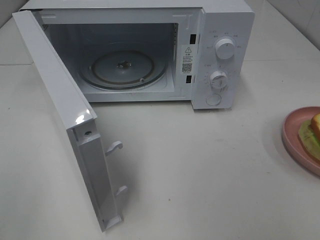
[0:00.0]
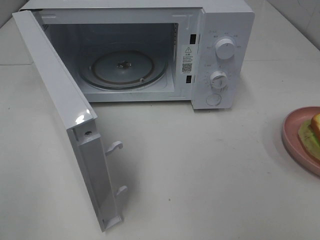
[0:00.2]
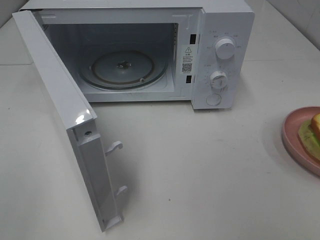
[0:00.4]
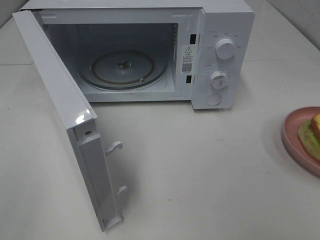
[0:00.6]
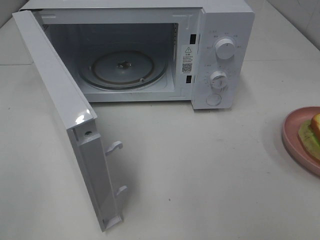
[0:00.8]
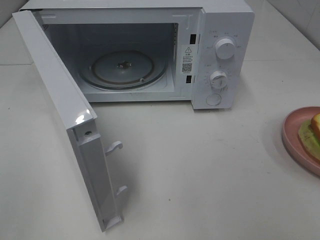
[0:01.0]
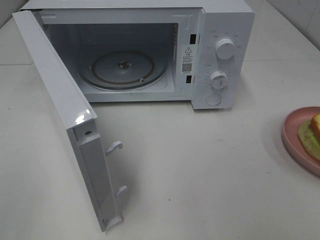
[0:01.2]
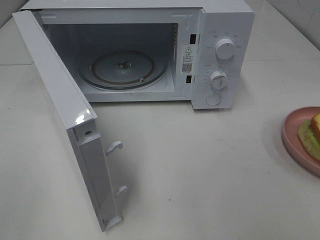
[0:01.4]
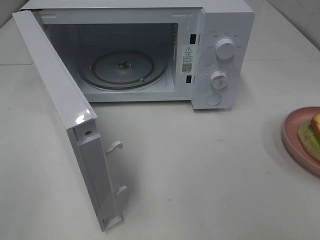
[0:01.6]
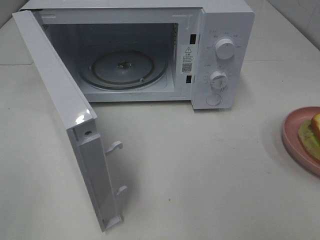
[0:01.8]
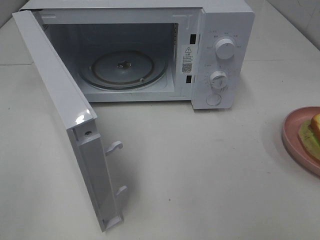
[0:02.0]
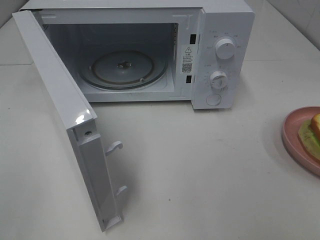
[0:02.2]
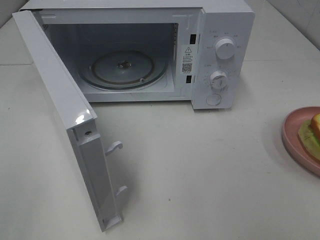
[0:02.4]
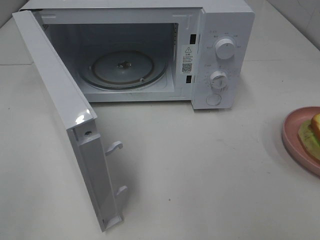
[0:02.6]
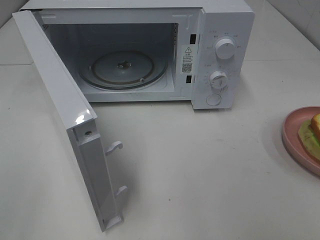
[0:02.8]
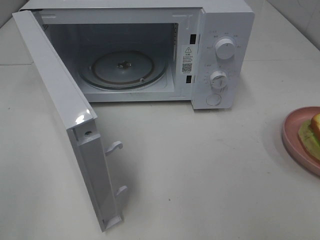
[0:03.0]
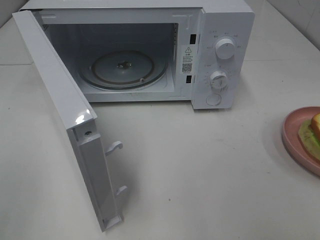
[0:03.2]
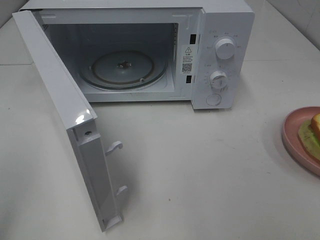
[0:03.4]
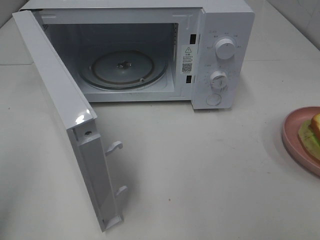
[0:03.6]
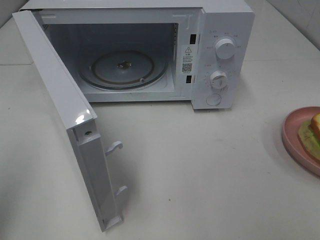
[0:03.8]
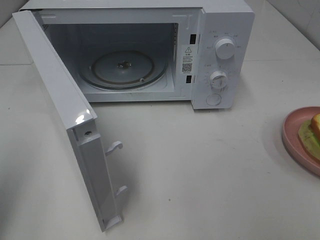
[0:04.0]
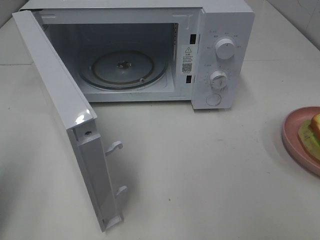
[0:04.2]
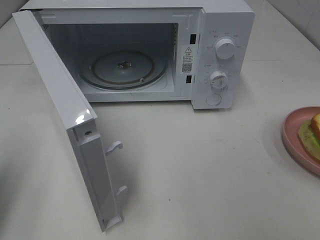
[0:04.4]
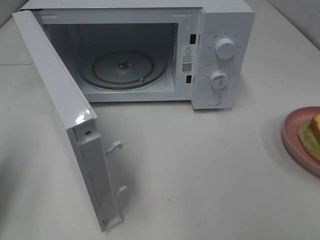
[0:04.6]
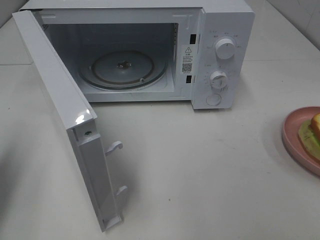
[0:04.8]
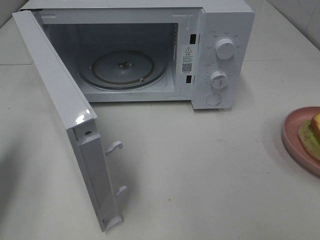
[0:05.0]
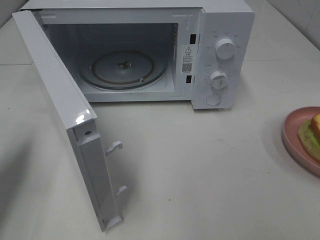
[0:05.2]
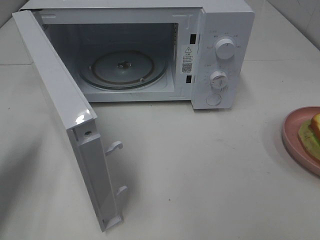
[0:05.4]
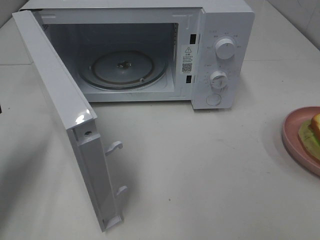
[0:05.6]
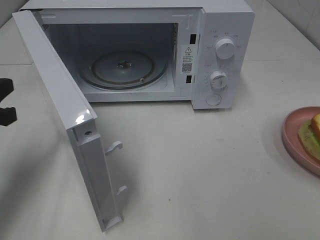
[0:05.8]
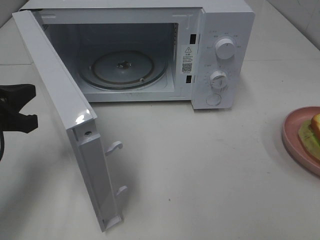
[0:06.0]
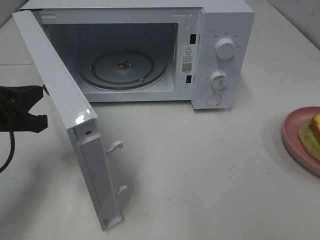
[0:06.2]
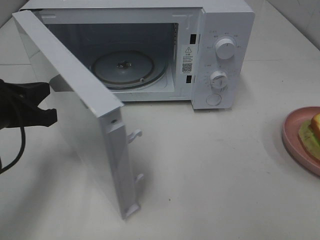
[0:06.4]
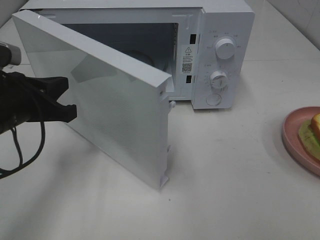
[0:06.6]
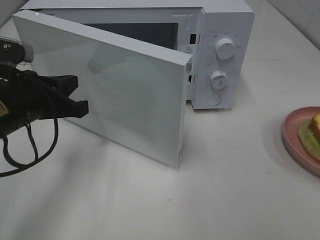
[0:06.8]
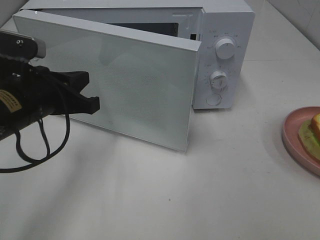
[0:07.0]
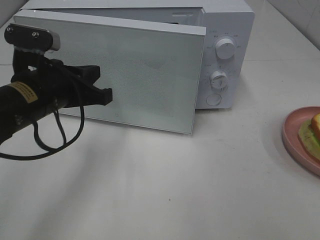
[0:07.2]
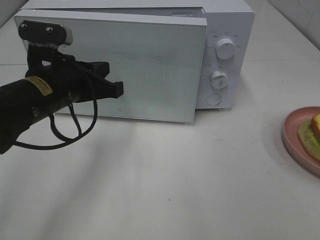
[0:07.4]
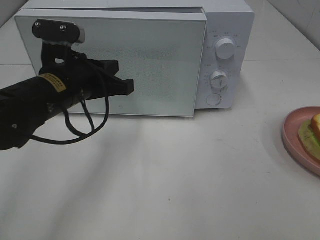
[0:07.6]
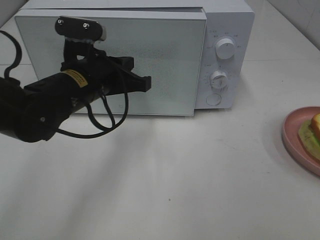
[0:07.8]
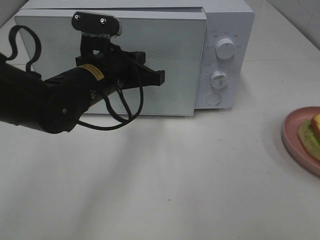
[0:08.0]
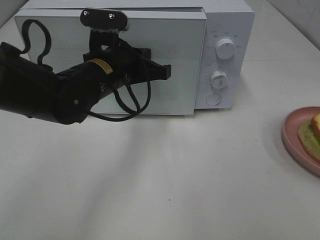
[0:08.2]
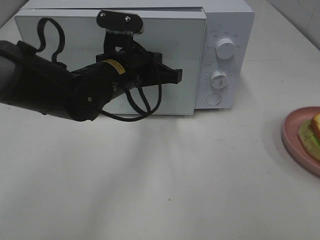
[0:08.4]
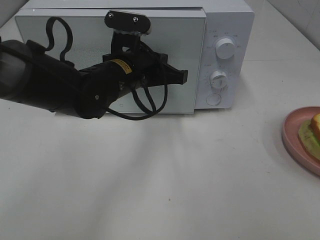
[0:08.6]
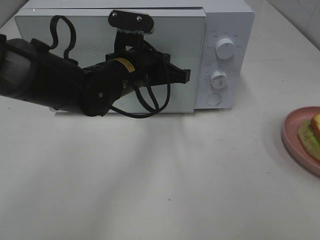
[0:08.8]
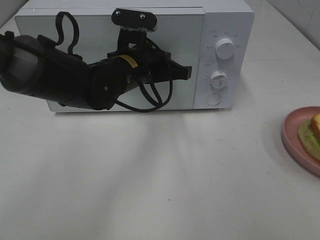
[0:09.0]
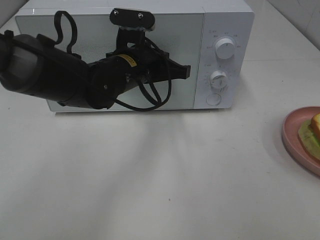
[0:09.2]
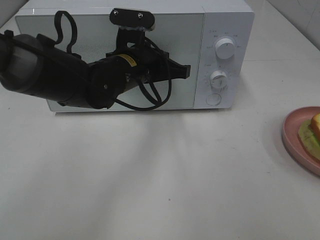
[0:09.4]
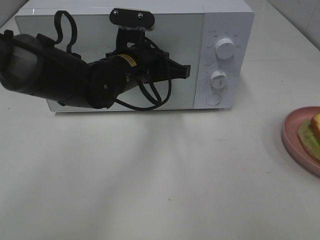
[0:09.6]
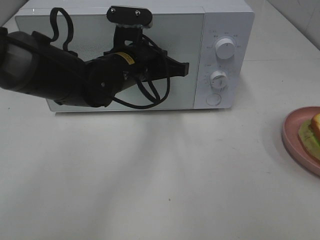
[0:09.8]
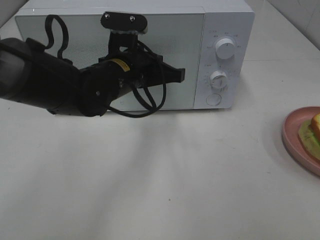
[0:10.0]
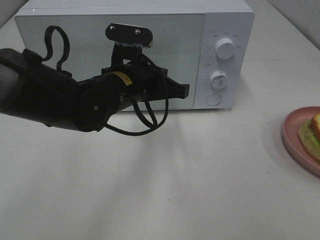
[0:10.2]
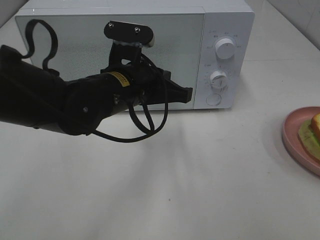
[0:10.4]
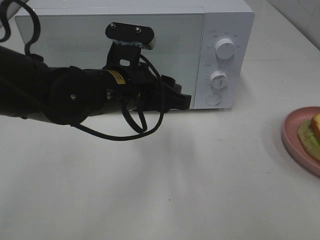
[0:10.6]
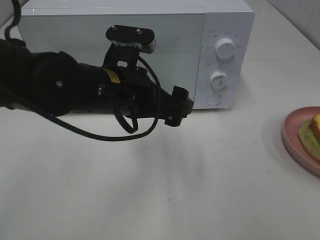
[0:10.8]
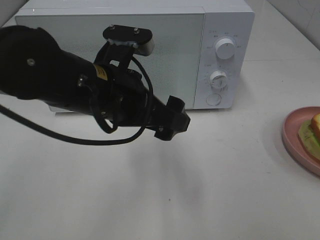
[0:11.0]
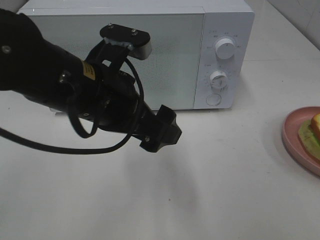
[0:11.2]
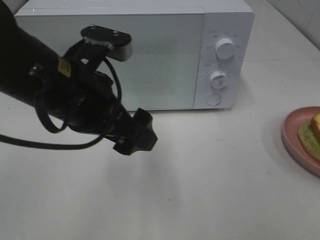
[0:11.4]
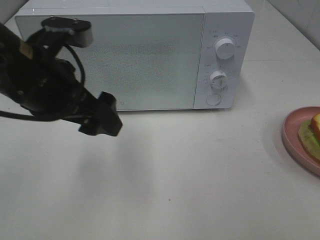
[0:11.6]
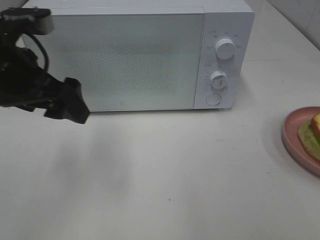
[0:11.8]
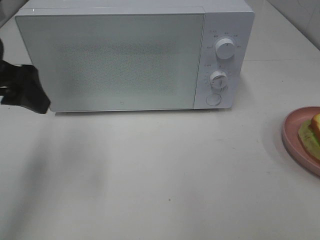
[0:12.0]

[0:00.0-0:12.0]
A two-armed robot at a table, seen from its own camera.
Task of the whole recording: Heat Sandwich.
Step, 0:00.0 to 0:10.6: Left hand: close the microwave door.
0:03.0 to 0:04.4: The left gripper moves forward and downward, approximately 15 cm, and closes its fingers.
0:04.4 to 0:06.0: The left gripper goes approximately 15 cm forward, downward and to the right.
0:06.0 to 0:07.6: The left gripper travels to the right and forward by some 15 cm.
0:07.6 to 0:09.0: The left gripper heads to the right and forward, covering about 10 cm.
0:09.0 to 0:10.4: The left gripper goes roughly 5 cm backward.
0:10.4 to 0:12.0: The left gripper travels to the left and upward by some 20 cm, and opens its fingers.

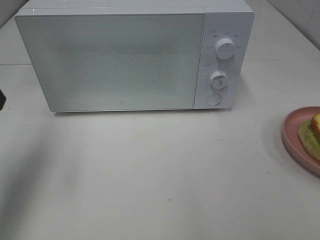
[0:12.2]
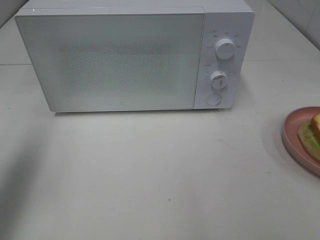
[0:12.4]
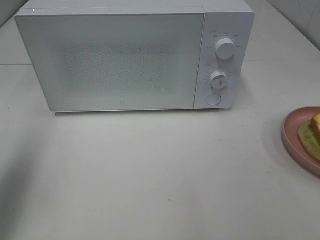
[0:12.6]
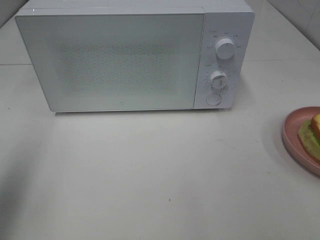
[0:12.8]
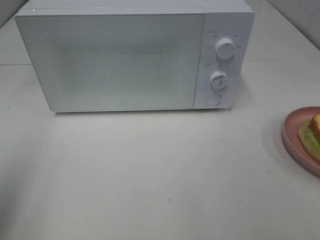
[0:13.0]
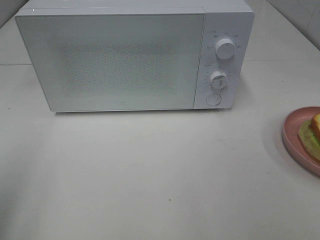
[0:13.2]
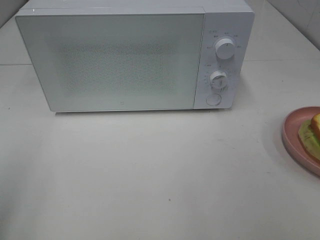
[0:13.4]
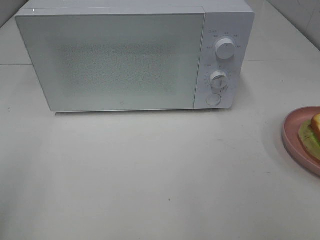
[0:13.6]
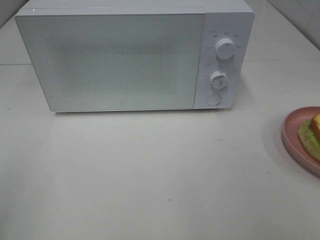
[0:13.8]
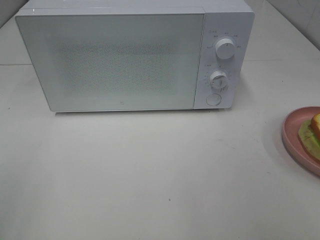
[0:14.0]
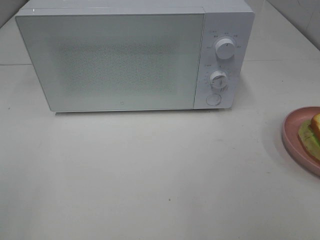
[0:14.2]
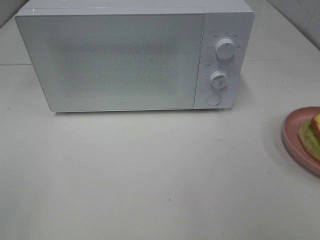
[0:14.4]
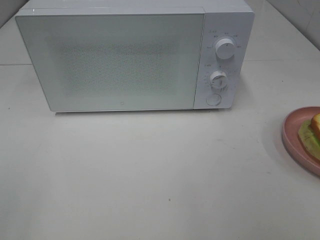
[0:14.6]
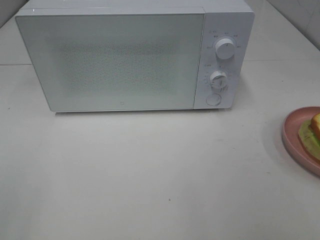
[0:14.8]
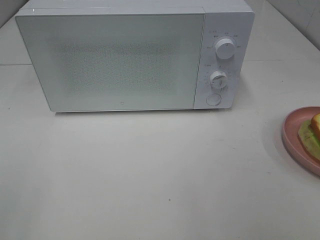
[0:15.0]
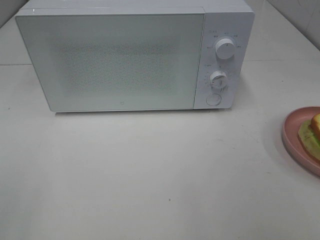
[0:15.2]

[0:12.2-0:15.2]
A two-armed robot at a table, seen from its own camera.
Task of the whole recording: Heat Sandwich.
0:12.2 to 0:13.8: The left gripper travels backward by approximately 20 cm.

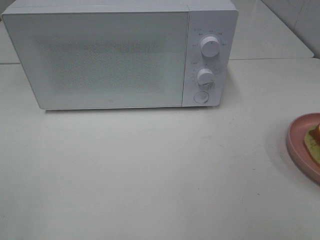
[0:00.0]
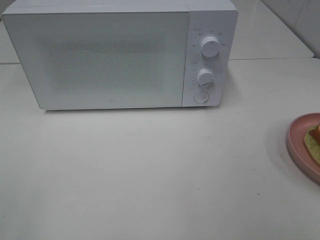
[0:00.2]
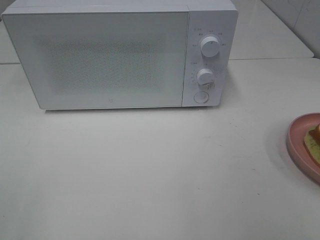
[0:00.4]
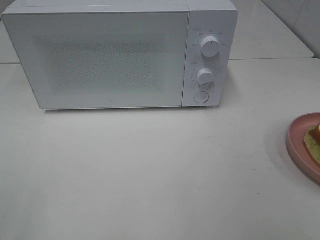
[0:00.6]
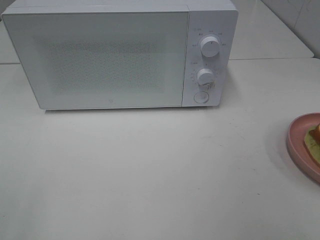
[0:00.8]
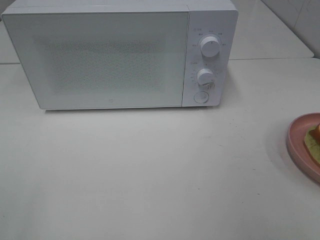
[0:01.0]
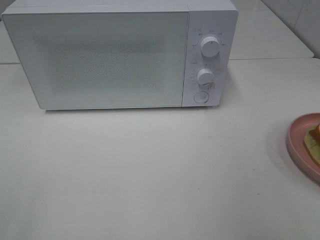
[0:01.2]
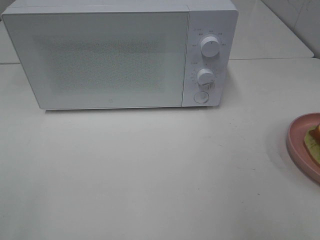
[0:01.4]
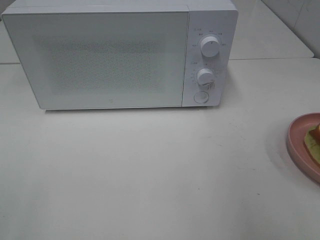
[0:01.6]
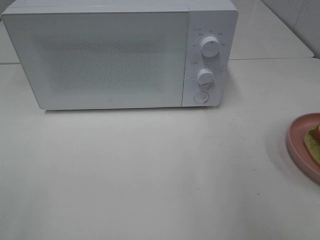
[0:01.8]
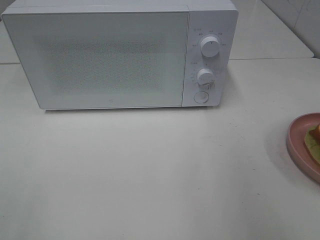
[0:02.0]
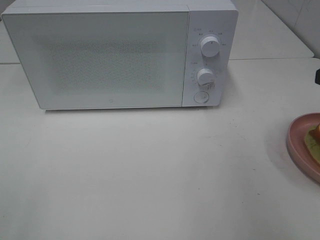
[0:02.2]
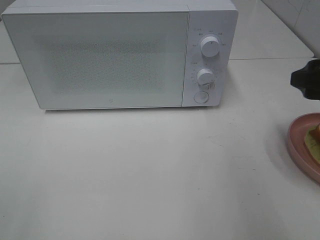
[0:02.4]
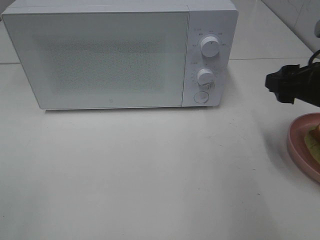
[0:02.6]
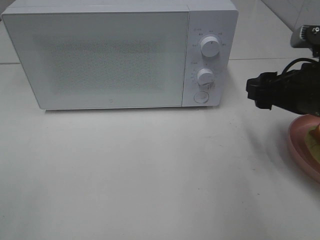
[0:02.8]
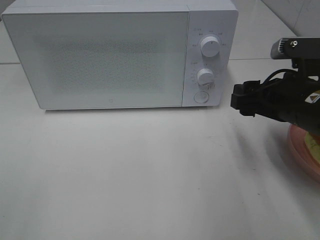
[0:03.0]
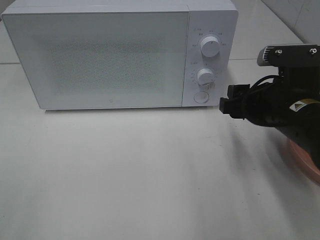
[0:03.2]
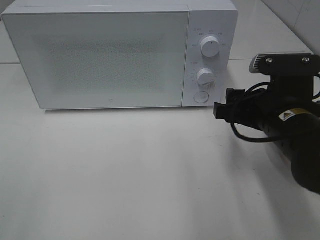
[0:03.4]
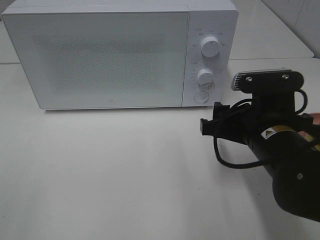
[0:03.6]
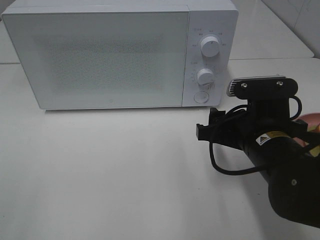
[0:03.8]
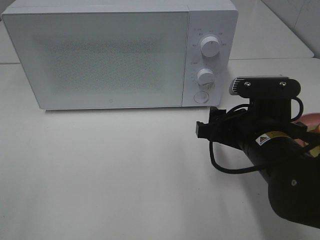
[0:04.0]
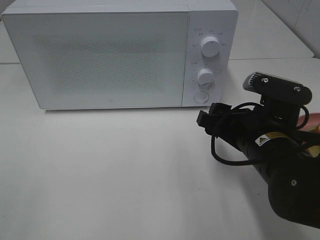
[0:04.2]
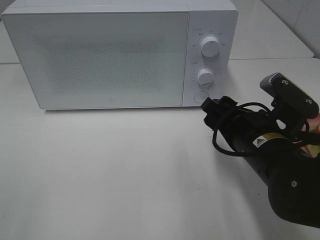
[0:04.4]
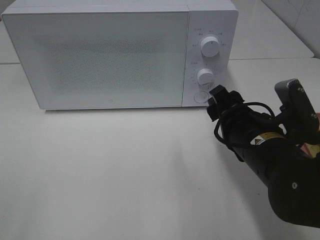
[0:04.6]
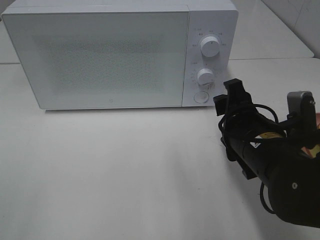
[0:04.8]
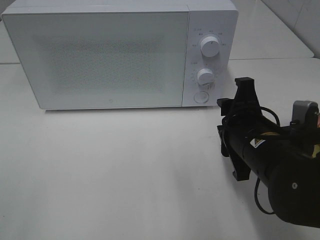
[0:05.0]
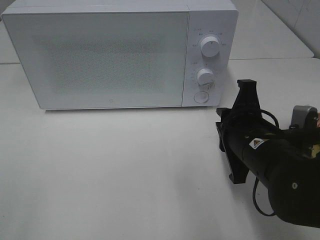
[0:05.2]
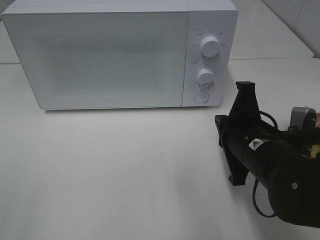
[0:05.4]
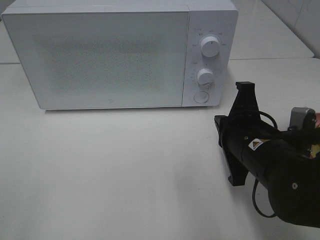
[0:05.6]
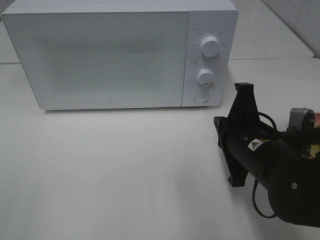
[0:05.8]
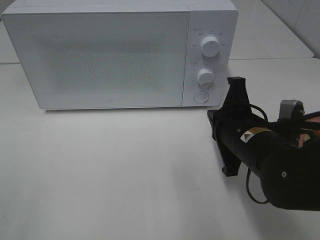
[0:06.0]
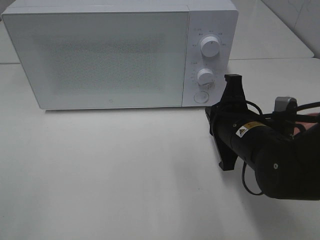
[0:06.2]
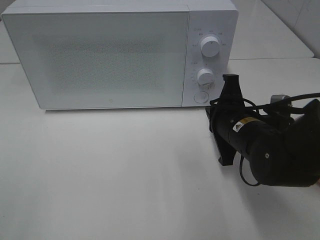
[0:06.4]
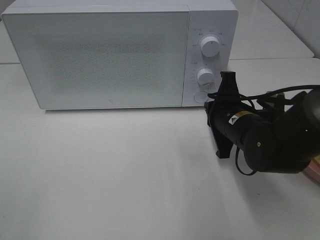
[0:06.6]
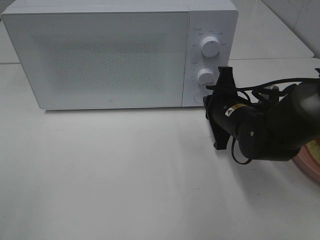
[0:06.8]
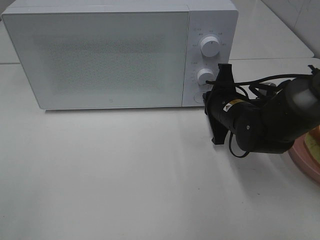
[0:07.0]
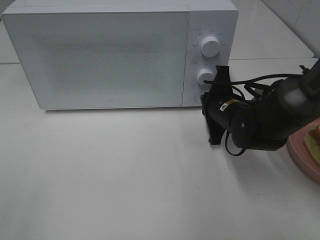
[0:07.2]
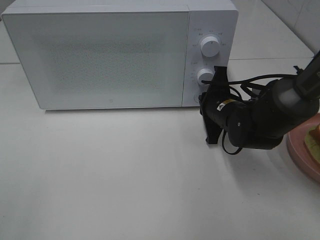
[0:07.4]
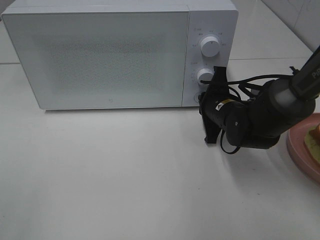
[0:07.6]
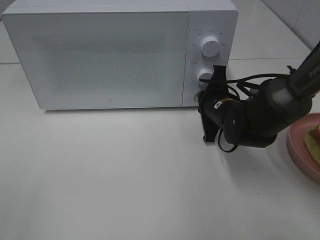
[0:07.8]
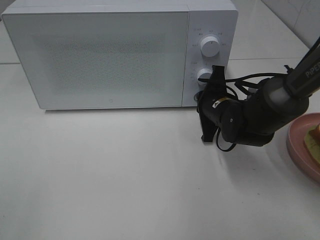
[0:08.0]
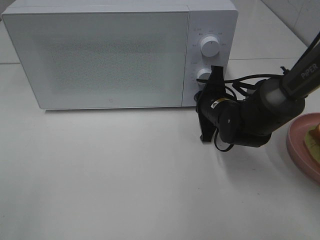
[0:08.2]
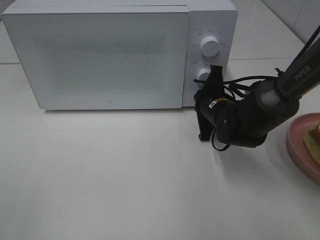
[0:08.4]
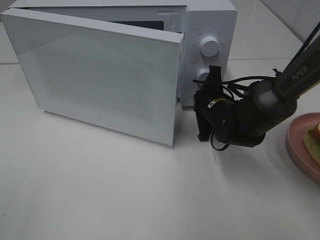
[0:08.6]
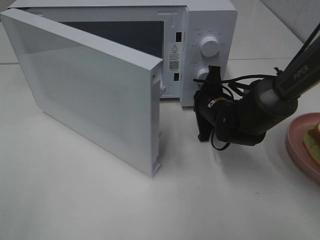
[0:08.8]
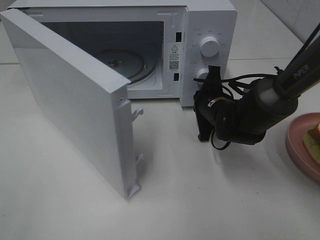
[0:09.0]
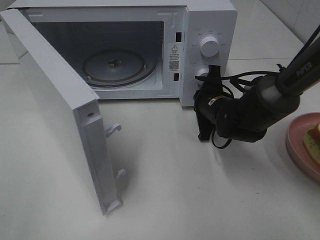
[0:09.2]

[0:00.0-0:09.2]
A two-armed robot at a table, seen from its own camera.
Task of the whole recording: Heat Sandwich.
0:01.6 to 0:03.0: The right gripper goes approximately 20 cm downward, forward and to the left.
0:03.0 to 0:04.6: The right gripper travels to the left by approximately 5 cm.
0:04.6 to 0:06.2: The right gripper closes up.
0:06.2 to 0:07.6: The right gripper shifts about 10 cm forward.
